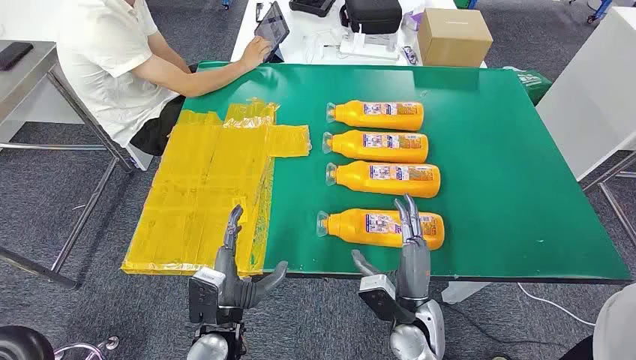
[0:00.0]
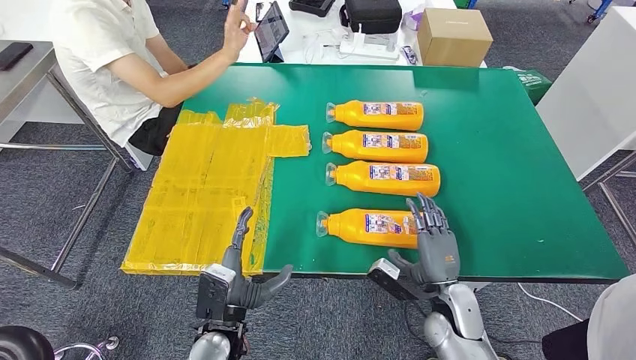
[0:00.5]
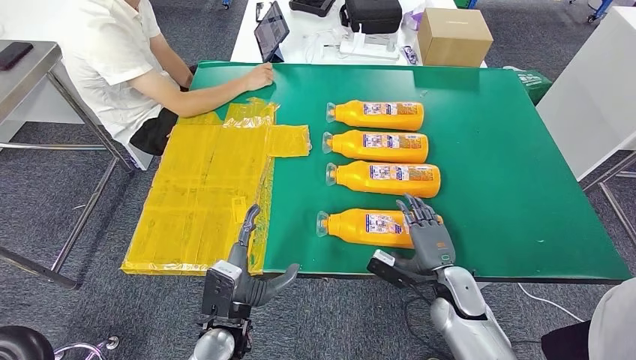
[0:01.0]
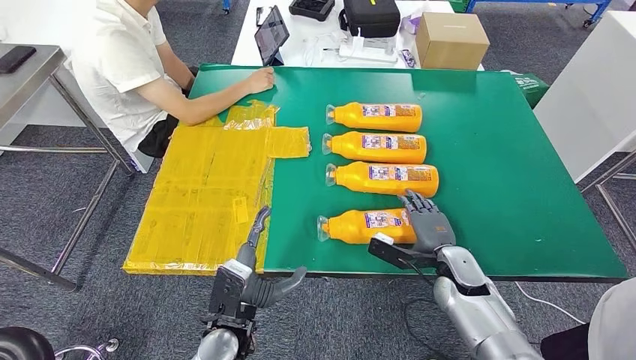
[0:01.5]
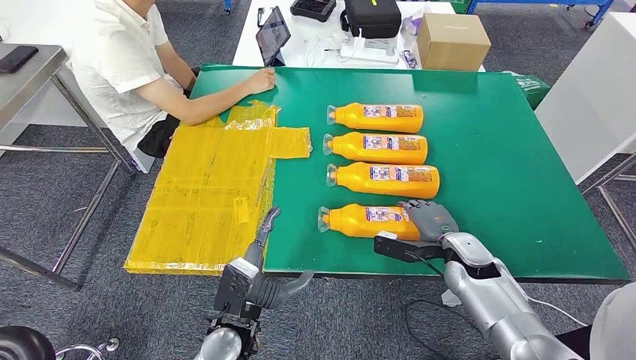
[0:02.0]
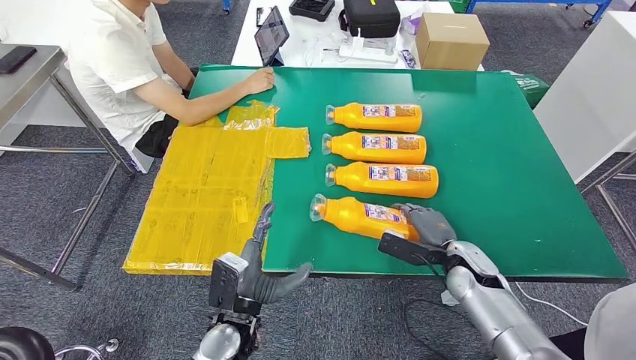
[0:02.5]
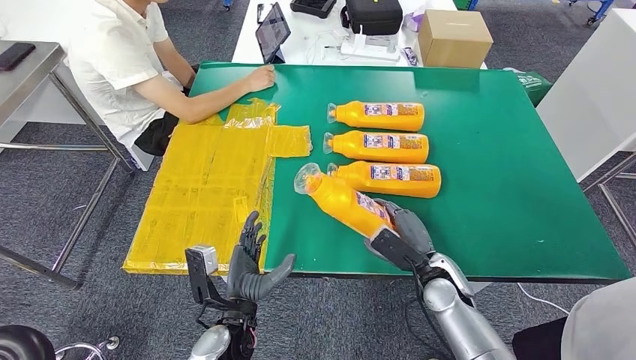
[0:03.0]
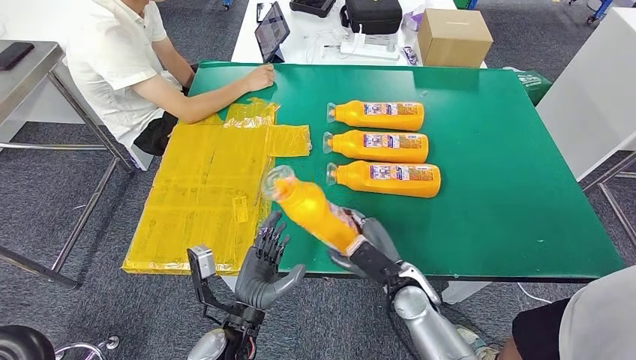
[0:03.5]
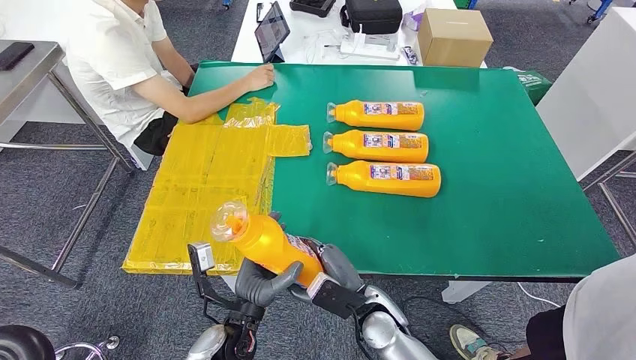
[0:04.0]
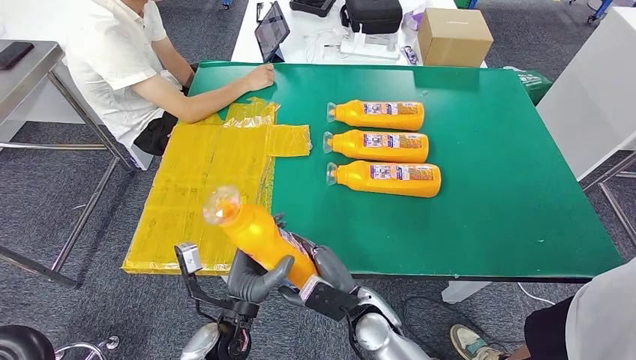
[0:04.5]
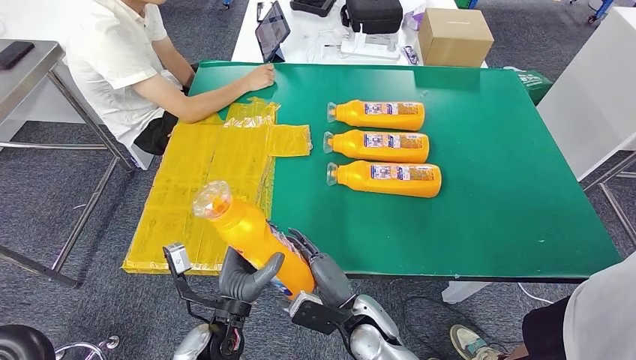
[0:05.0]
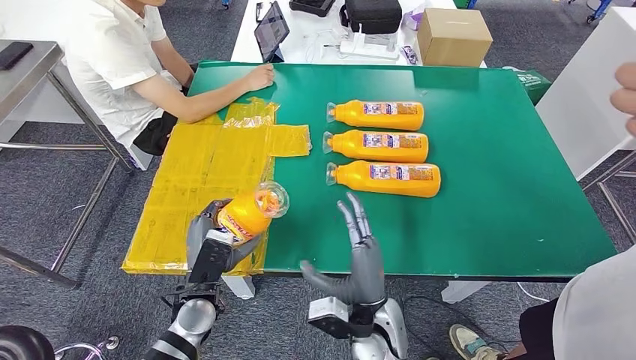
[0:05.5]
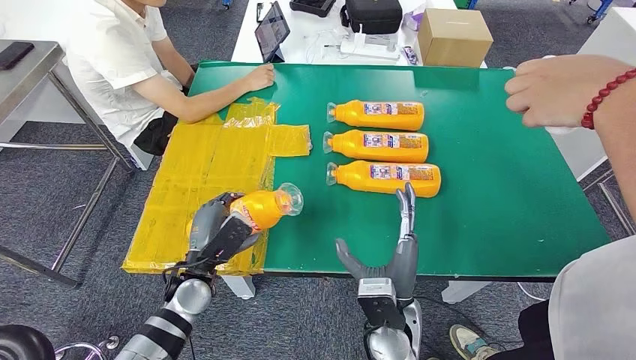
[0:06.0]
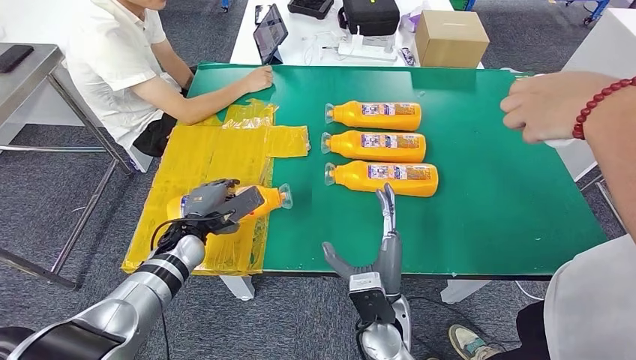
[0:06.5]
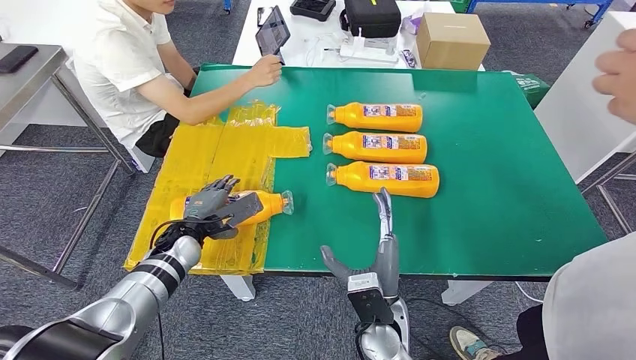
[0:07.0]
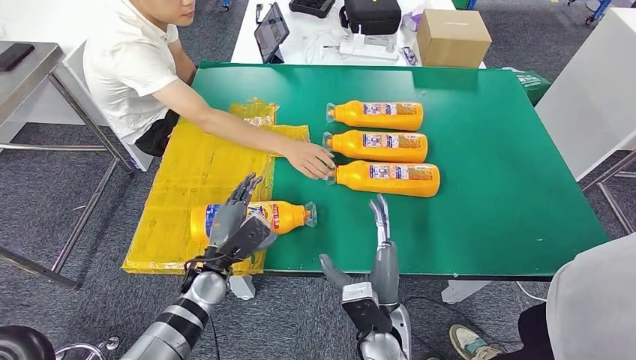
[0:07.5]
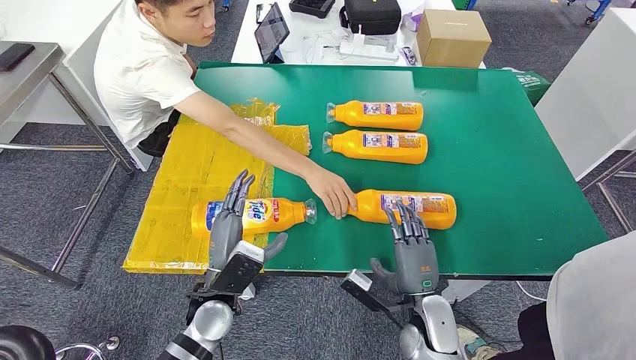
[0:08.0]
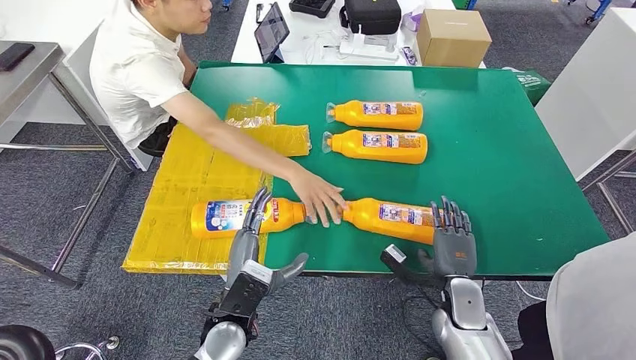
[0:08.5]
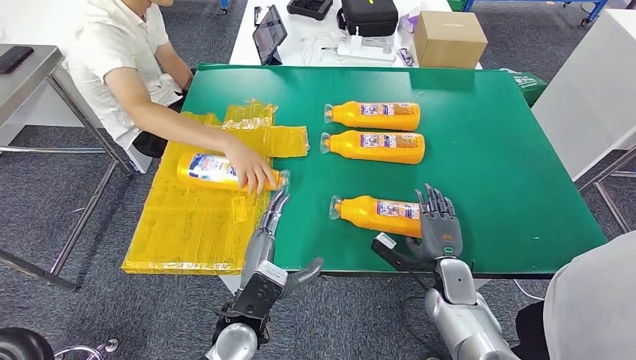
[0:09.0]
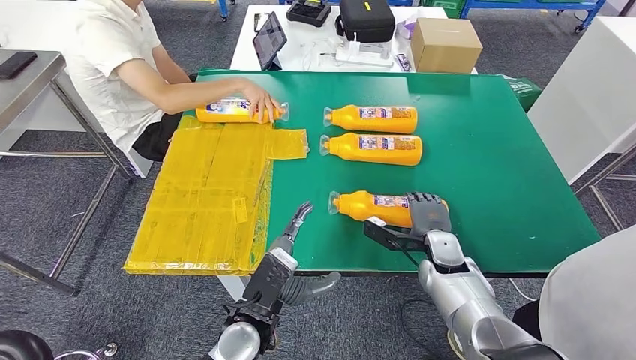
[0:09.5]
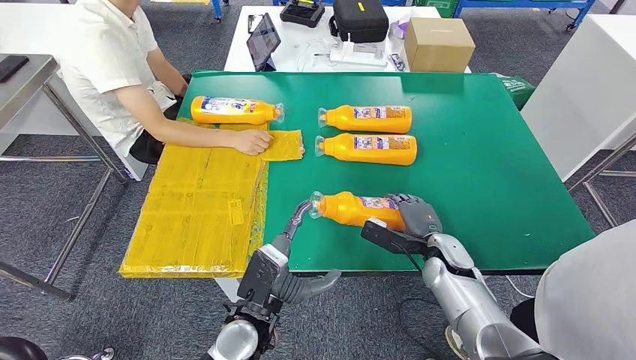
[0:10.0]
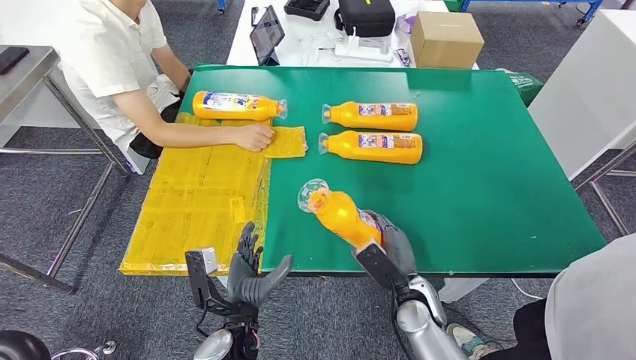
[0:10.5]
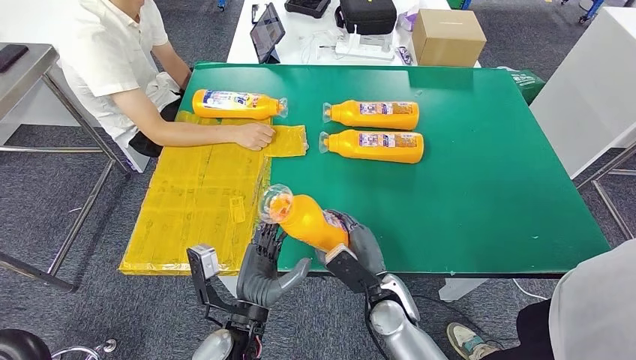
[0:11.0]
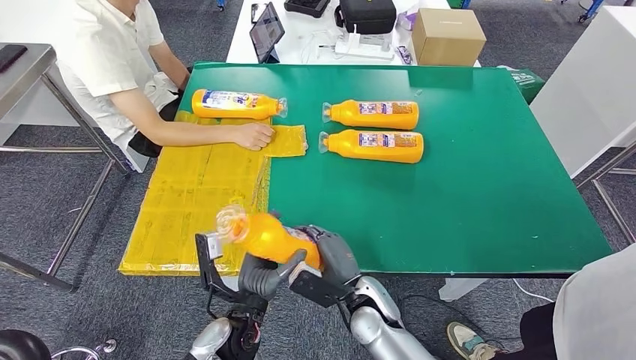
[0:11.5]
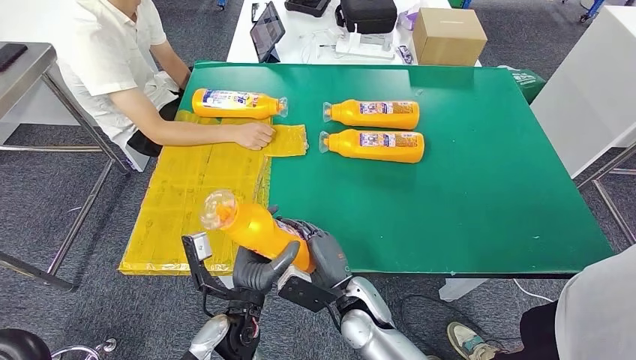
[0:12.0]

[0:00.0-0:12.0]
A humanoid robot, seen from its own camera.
Step, 0:00.0 to 0:05.0: Take the fast-moving consumer goods bottle from the table.
Step, 0:06.0 to 0:09.0: Flip the fast-moving consumer goods bottle to the front side.
0:04.0 to 0:06.0: The left hand shifts some 15 cm forward and to the left. Meanwhile the right hand shifts about 5 cm upward.

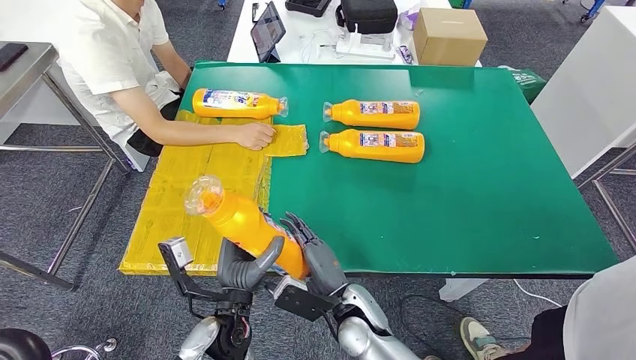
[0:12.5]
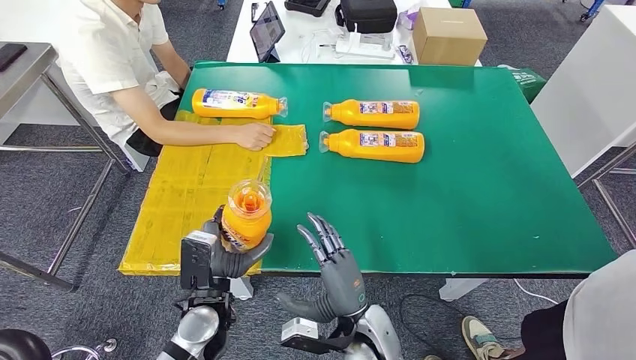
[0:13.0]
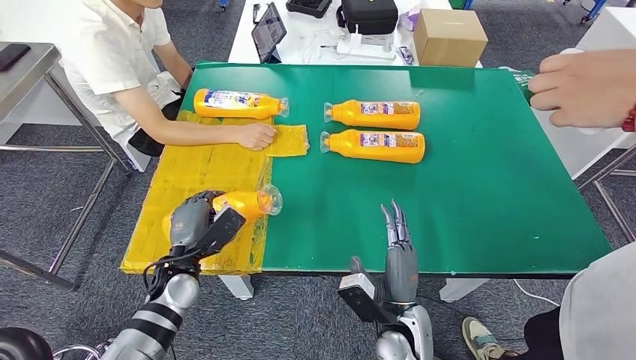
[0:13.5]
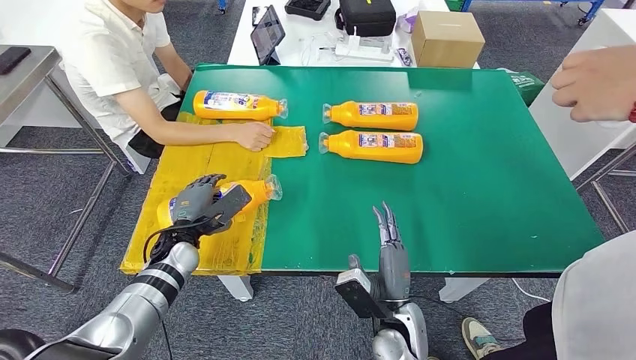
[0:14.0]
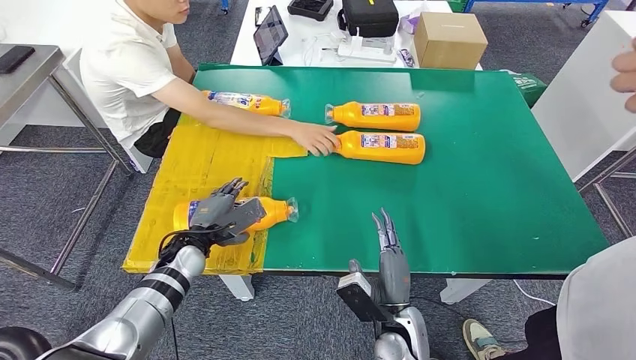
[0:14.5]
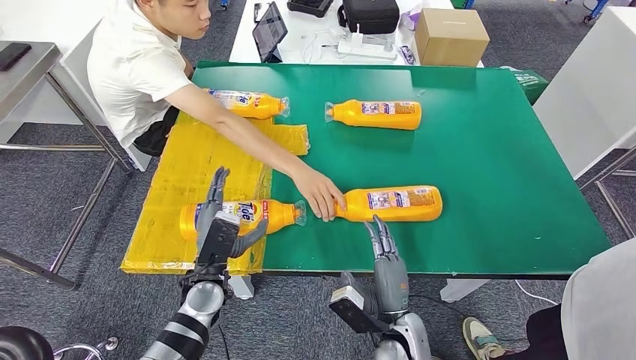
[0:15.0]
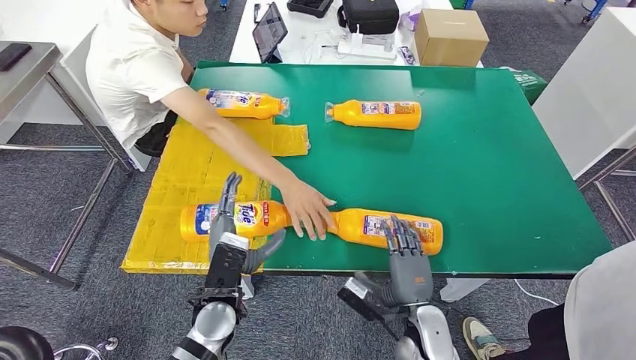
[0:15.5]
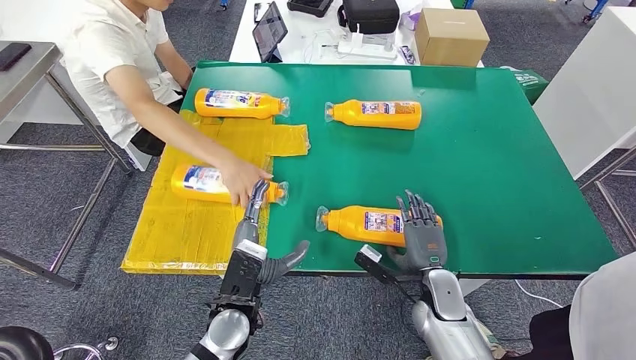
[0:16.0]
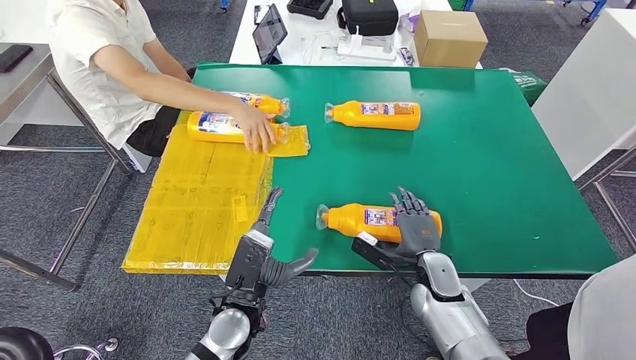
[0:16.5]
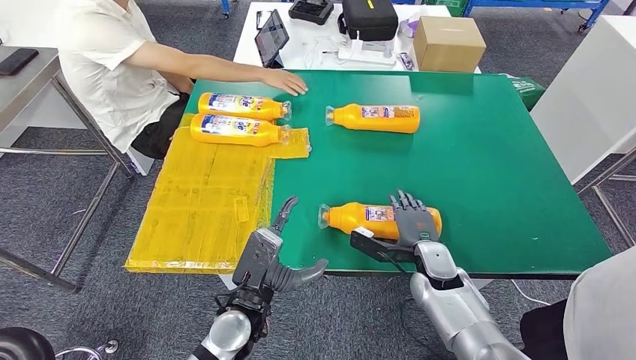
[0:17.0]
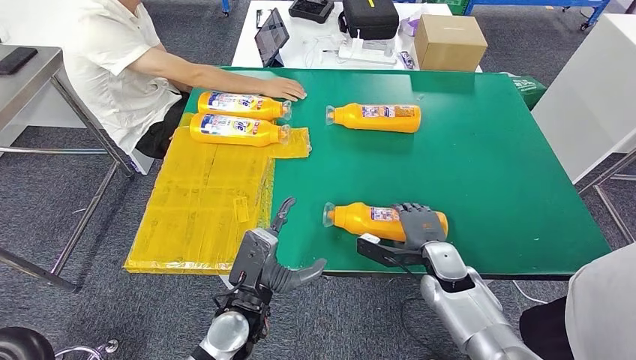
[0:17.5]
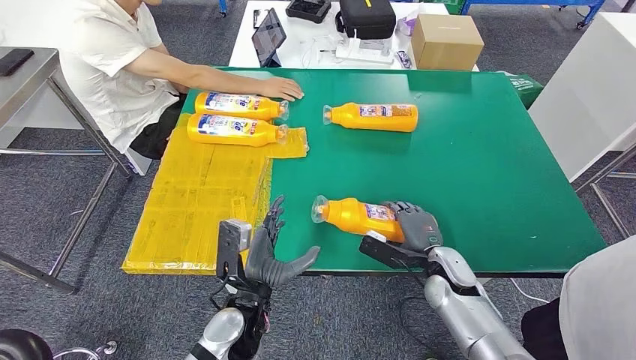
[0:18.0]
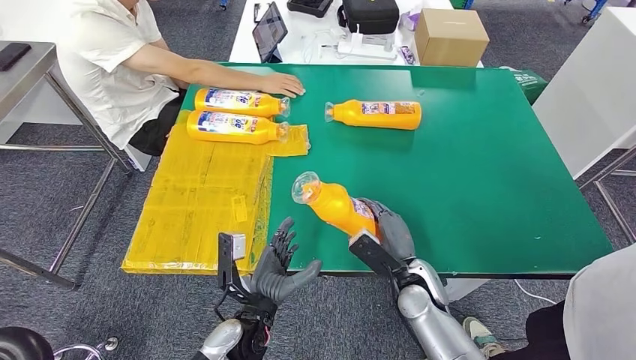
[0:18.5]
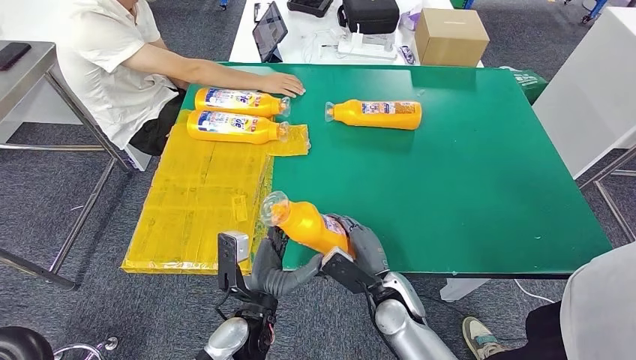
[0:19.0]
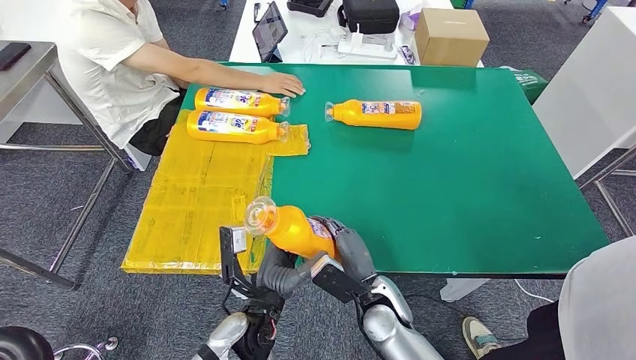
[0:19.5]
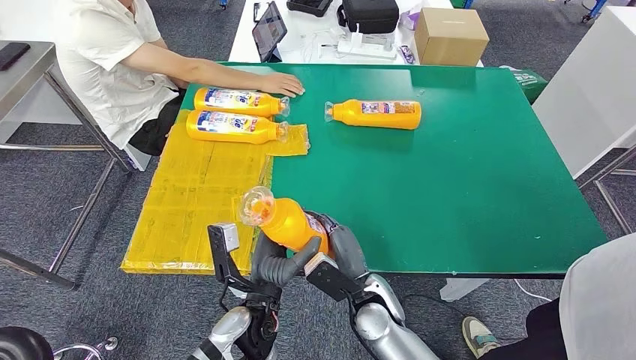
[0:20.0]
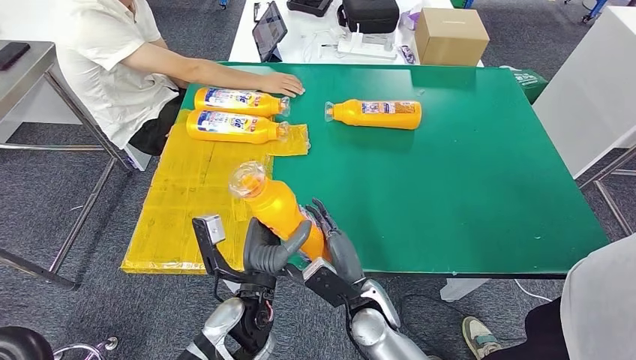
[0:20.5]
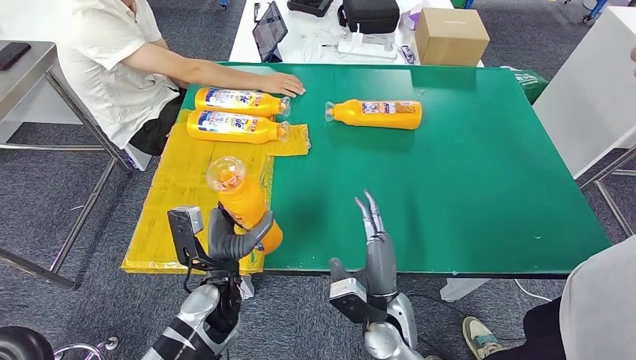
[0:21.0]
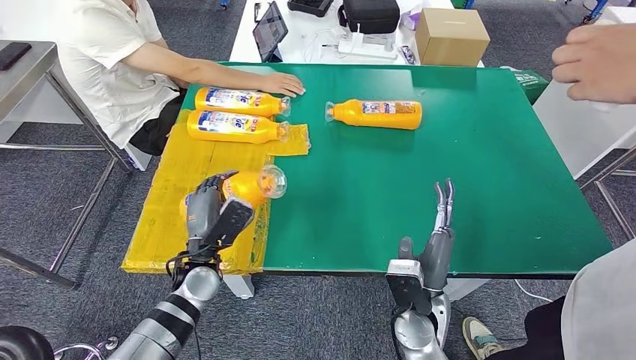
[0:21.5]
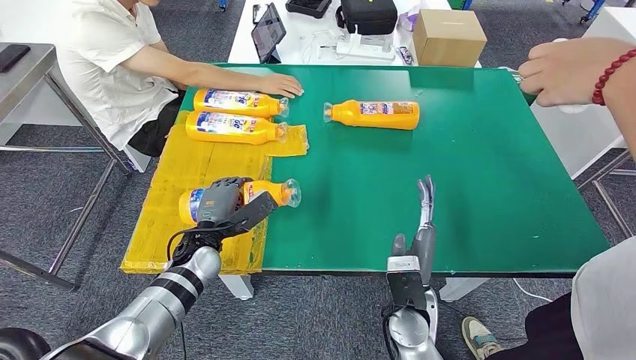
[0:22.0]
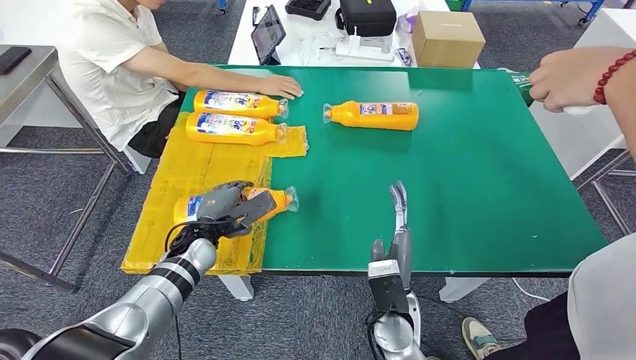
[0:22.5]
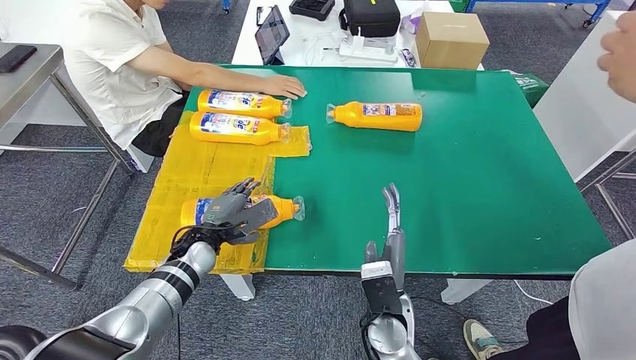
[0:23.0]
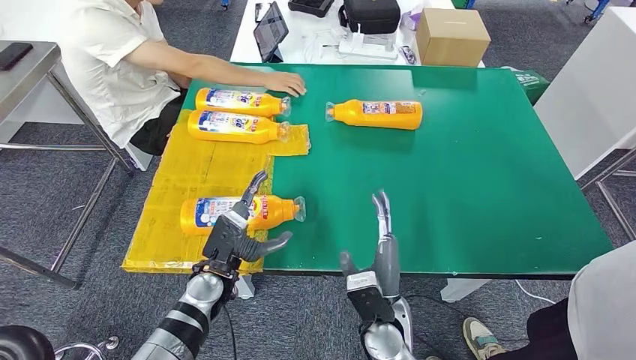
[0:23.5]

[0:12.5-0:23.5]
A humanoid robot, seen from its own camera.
Step, 0:13.0 to 0:15.5: Flip the fast-moving consumer goods bottle to the front side.
Step, 0:16.0 to 0:20.5: Pick up the fast-moving consumer goods bottle from the table.
0:20.0 to 0:21.5: The left hand goes about 15 cm to the left and forward. Meanwhile the right hand moves to the right, approximately 5 cm.
0:21.5 to 0:23.5: The right hand travels to the left by some 5 cm.
